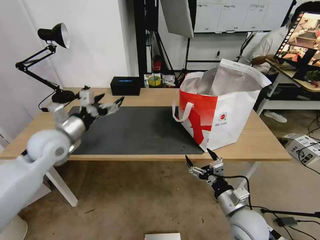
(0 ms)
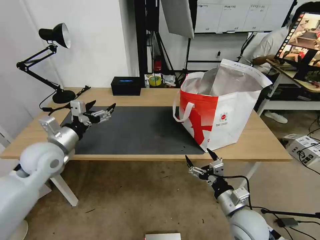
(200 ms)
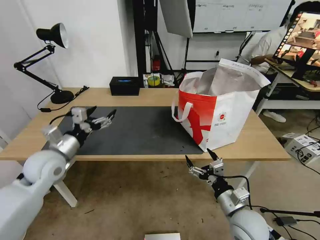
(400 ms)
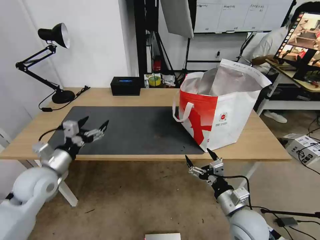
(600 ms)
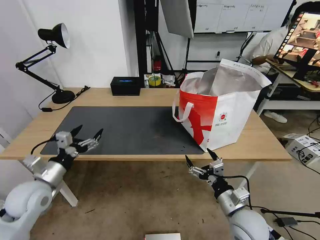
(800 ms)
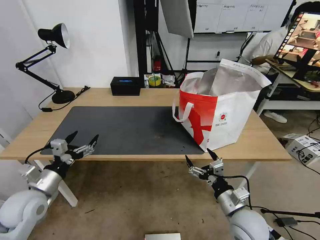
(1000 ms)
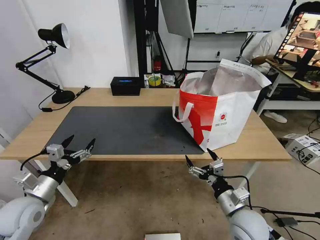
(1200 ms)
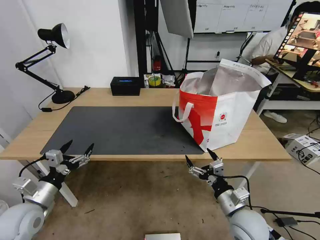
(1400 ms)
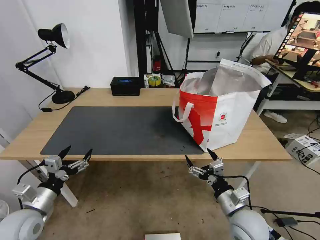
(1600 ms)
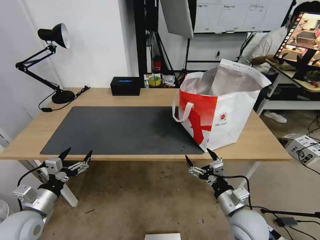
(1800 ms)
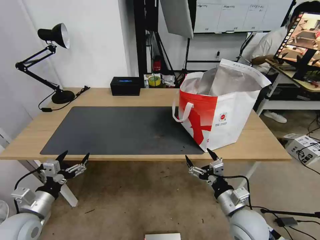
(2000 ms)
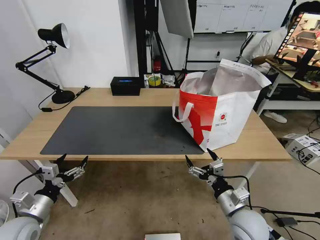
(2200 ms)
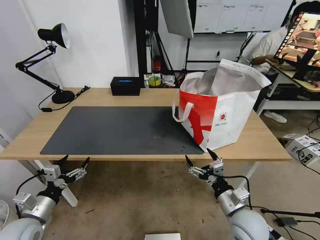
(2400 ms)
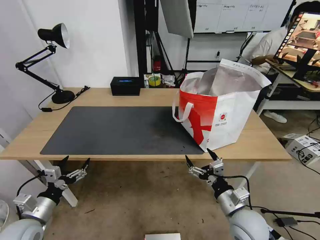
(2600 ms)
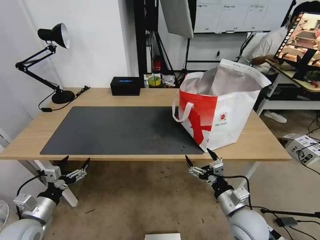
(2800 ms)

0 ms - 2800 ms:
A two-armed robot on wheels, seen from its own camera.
Task of the whole recording: Pick up the trash from the table and place it into the takeout bag.
0 ms - 1400 ms: The left gripper goes about 20 cm backward, downward and to the left.
1400 ms - 2800 ms: The left gripper shifts by roughly 5 cm.

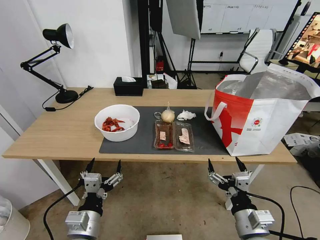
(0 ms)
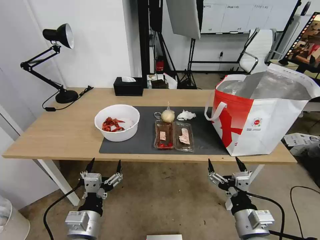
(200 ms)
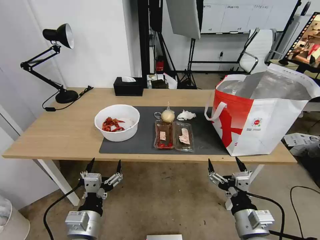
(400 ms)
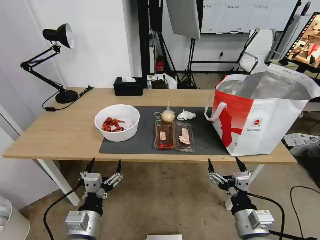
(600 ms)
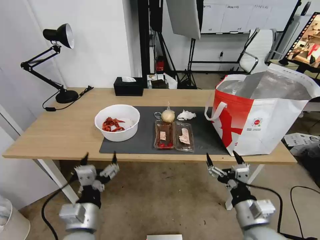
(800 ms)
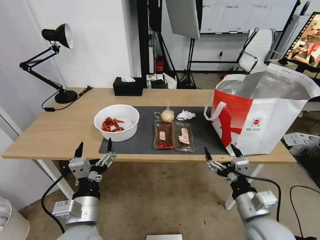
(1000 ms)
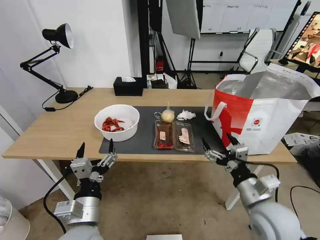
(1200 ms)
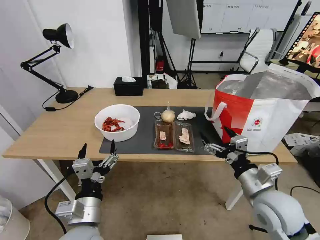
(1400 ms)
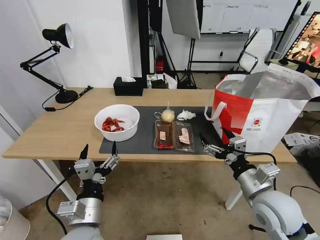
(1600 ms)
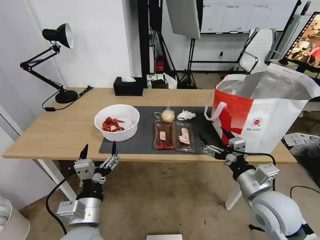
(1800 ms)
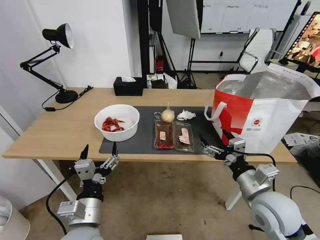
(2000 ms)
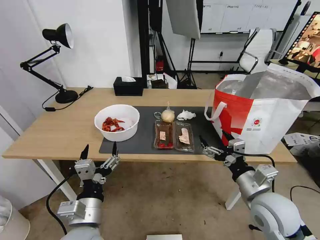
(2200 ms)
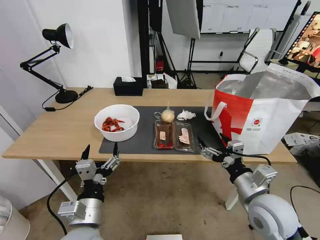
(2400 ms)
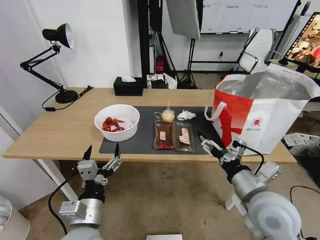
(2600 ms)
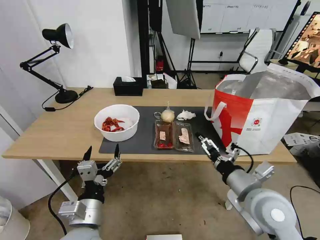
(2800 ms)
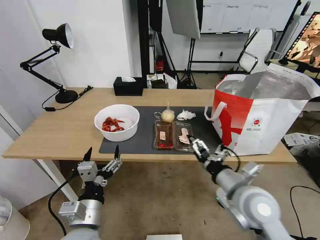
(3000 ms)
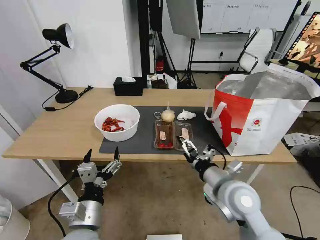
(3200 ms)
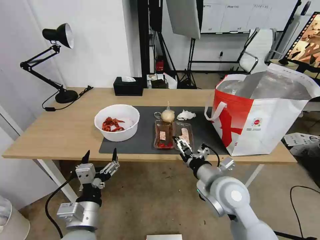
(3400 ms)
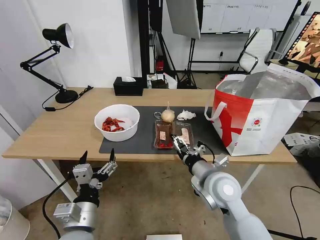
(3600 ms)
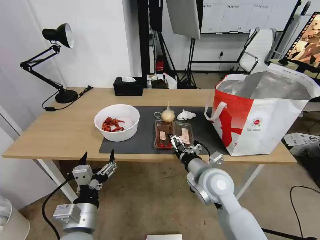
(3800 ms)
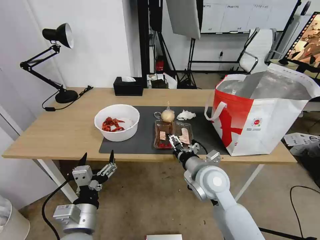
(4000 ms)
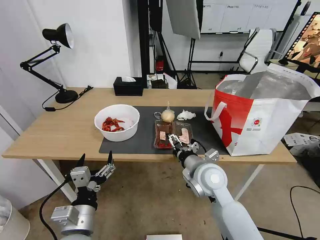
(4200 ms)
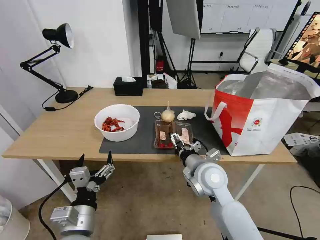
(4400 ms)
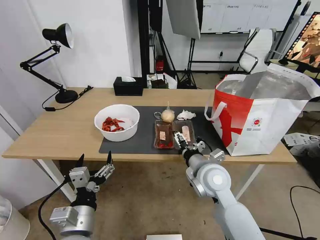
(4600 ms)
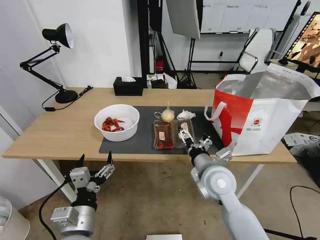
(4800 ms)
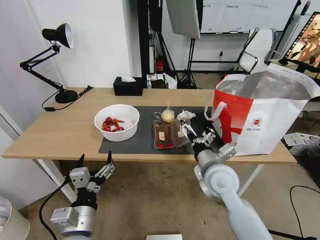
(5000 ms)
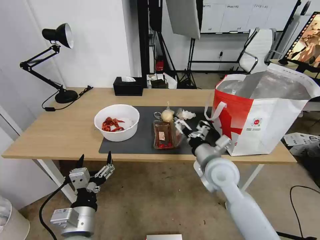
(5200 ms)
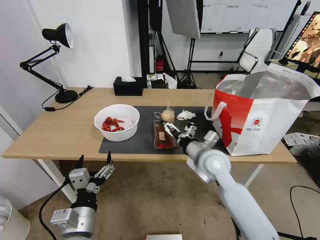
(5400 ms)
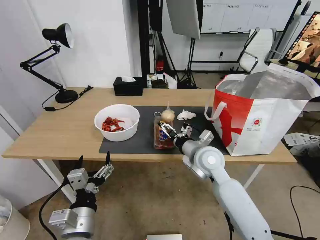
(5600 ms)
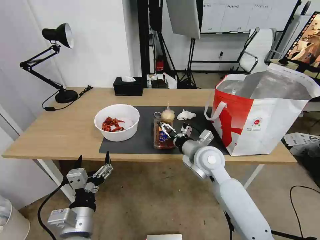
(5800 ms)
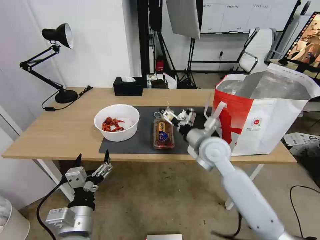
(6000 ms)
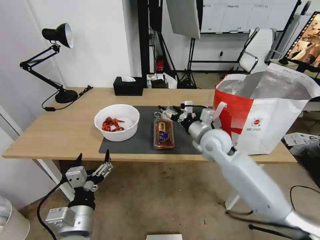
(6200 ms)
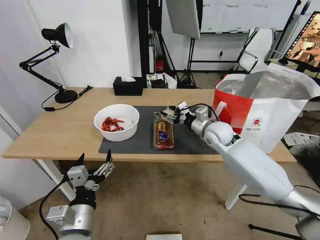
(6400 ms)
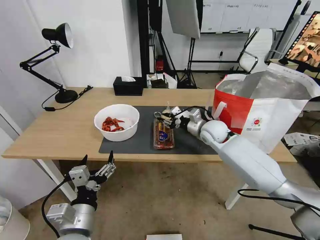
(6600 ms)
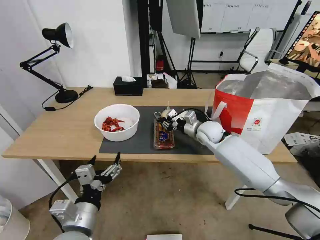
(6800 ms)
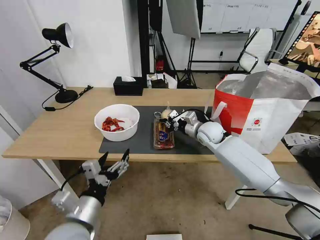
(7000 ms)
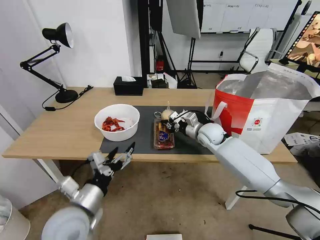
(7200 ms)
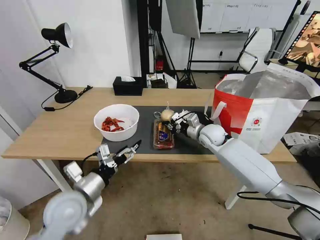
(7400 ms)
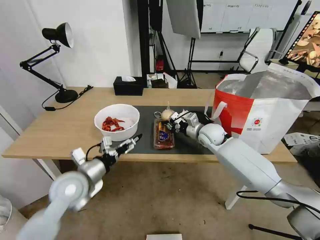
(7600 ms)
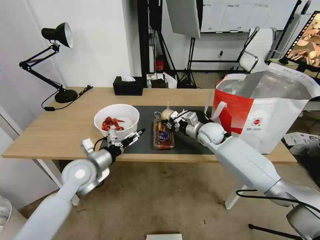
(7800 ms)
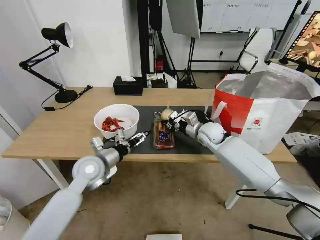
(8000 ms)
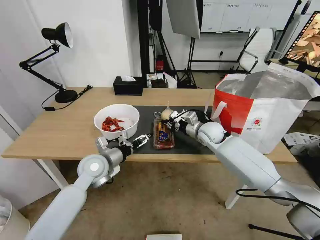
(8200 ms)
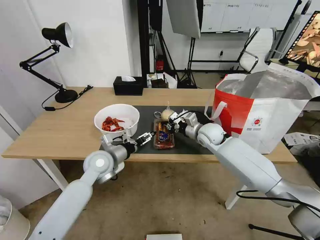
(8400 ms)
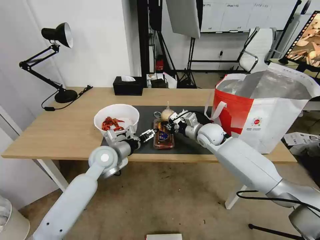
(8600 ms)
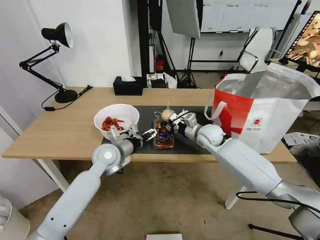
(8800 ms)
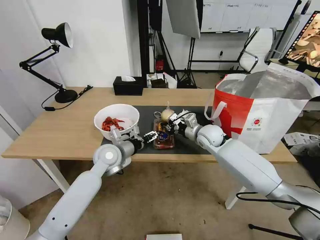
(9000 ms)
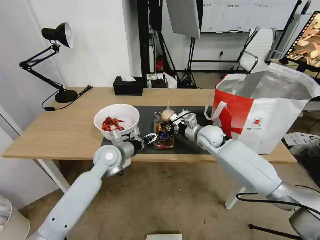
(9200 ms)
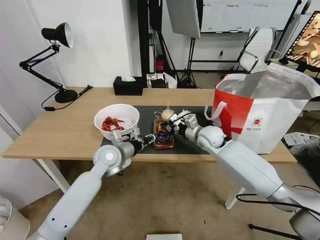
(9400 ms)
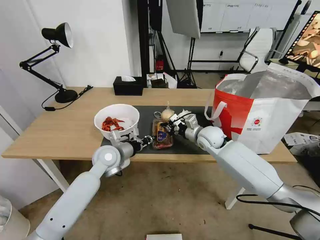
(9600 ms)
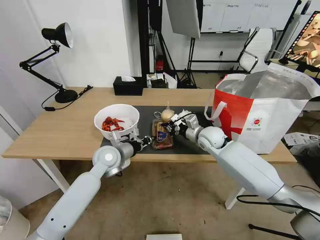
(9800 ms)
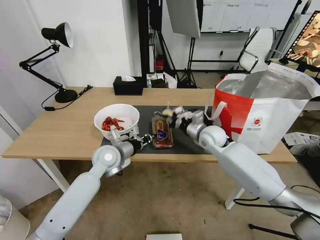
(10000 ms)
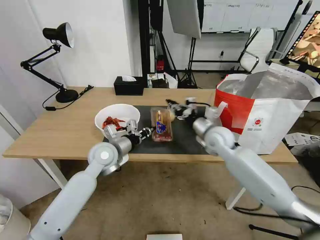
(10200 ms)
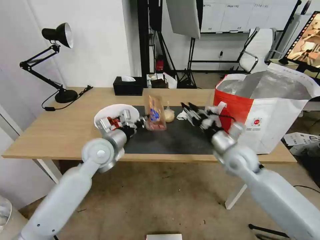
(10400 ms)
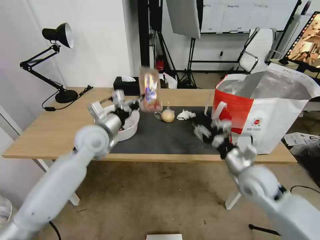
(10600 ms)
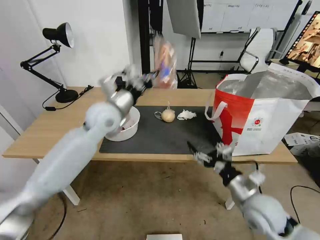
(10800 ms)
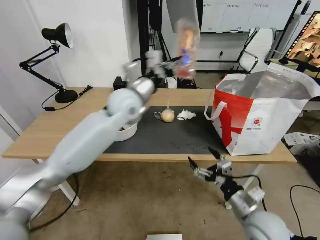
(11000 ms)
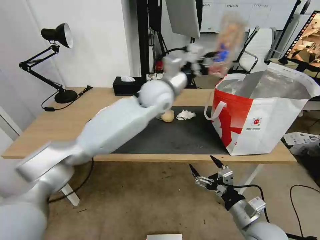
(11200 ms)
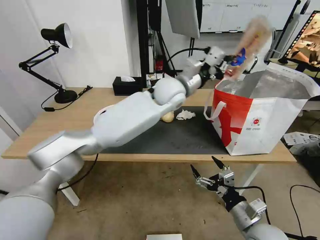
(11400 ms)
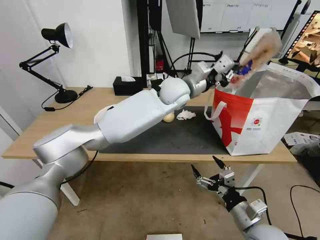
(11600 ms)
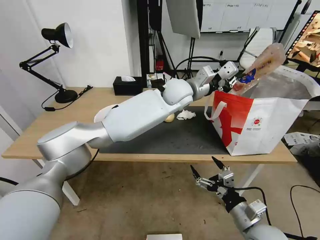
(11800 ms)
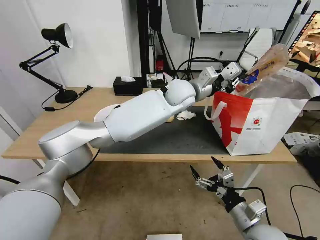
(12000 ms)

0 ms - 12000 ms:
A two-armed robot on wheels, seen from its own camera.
Task of the whole recording: Pick up the trash from the table and place it into the takeout bag.
1600 ms - 3000 ms: The right gripper travels to the left by roughly 5 cm.
3000 ms - 4400 ms: The right gripper shifts some 10 cm forward and to the left.
4400 ms - 6000 ms: The right gripper travels forward by roughly 5 cm.
6000 ms - 7600 ms: The left gripper travels forward by roughly 15 cm. Meanwhile the right gripper goes some 15 cm forward and downward, and closes.
7600 ms - 9000 ms: The left gripper shifts some 15 cm forward and to the right.
9000 ms - 10400 ms: The right gripper moves backward and to the right, about 15 cm, and opens its fingers. Meanwhile the left gripper heads upward, covering some 5 cm, and closes up.
10400 ms - 12000 ms: The right gripper goes roughly 20 cm backward, and opens up; the left gripper goes about 30 cm to the right, forward and upward.

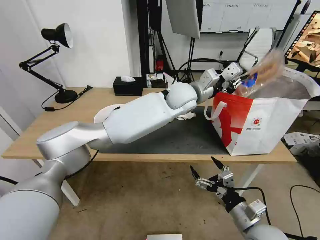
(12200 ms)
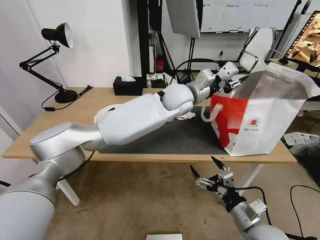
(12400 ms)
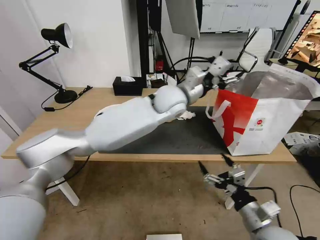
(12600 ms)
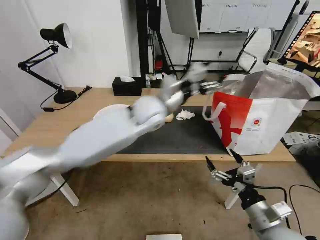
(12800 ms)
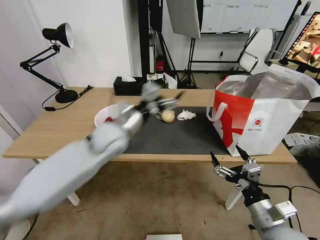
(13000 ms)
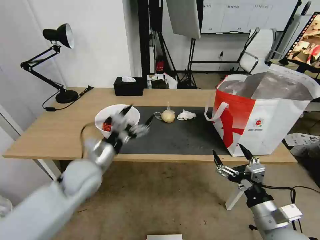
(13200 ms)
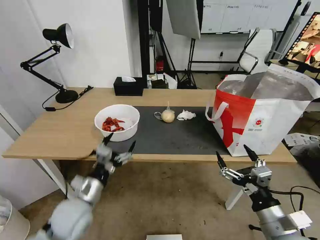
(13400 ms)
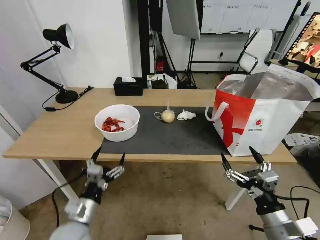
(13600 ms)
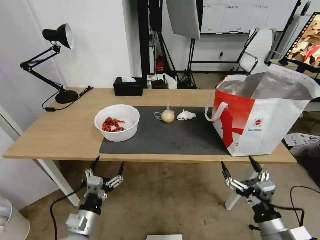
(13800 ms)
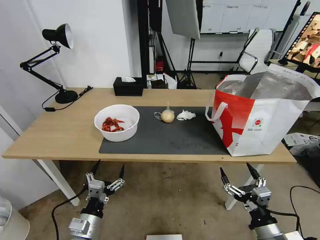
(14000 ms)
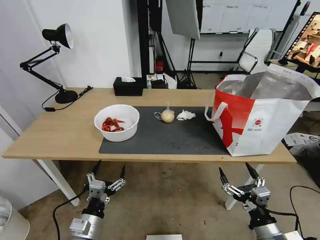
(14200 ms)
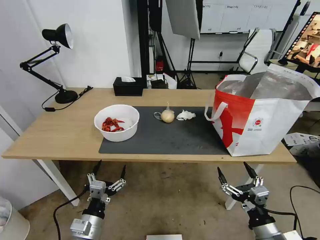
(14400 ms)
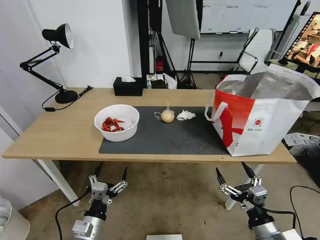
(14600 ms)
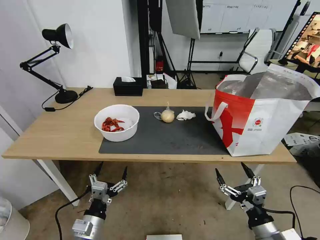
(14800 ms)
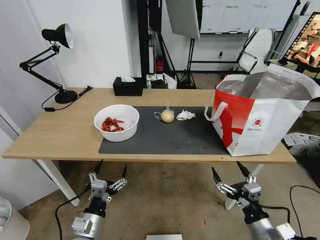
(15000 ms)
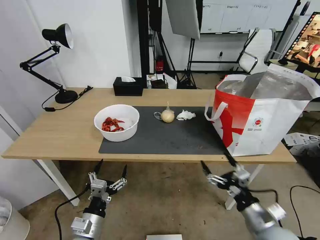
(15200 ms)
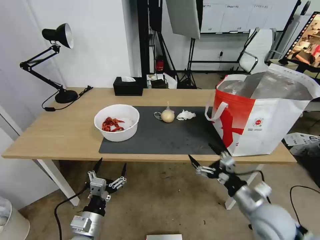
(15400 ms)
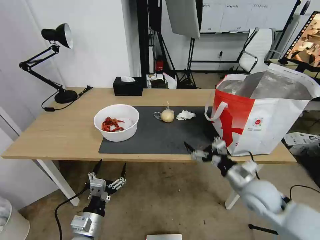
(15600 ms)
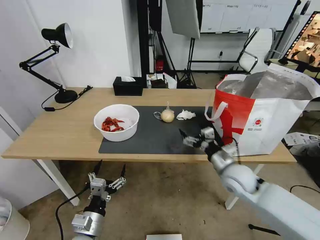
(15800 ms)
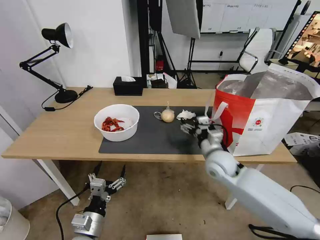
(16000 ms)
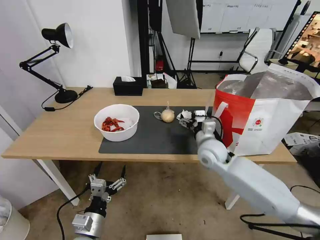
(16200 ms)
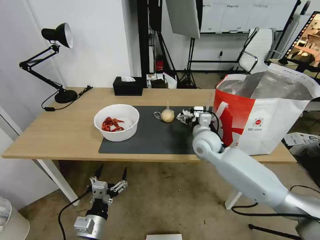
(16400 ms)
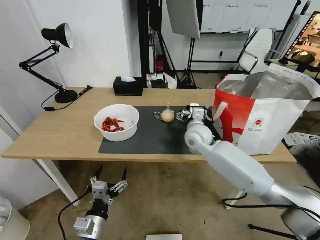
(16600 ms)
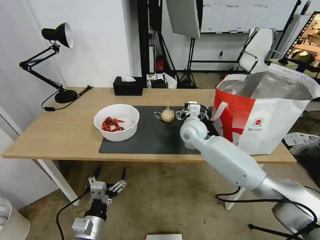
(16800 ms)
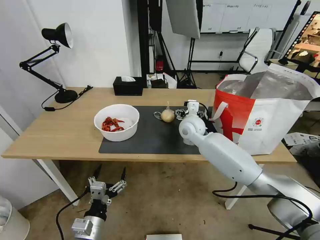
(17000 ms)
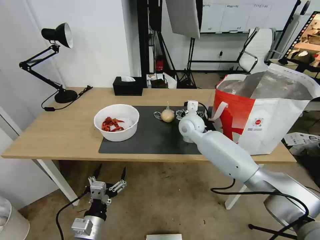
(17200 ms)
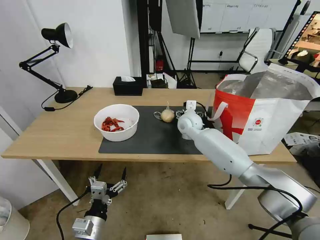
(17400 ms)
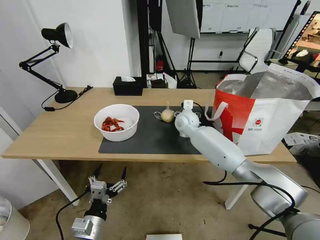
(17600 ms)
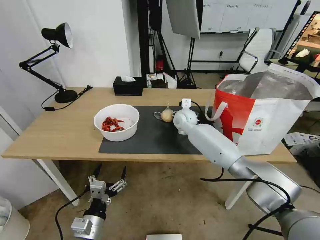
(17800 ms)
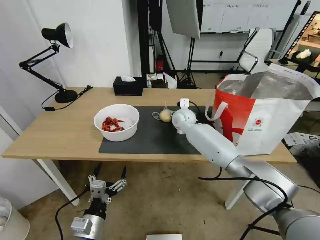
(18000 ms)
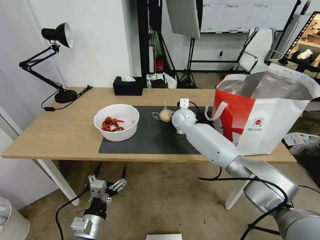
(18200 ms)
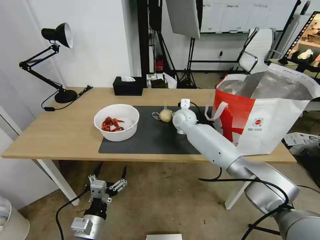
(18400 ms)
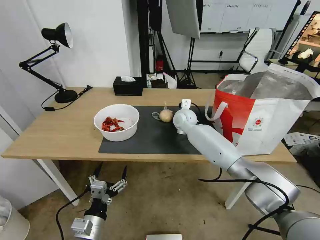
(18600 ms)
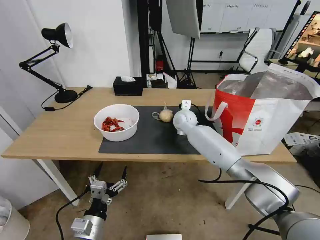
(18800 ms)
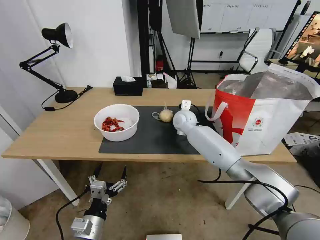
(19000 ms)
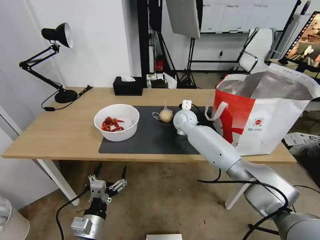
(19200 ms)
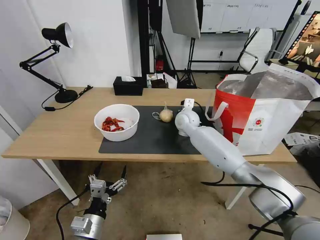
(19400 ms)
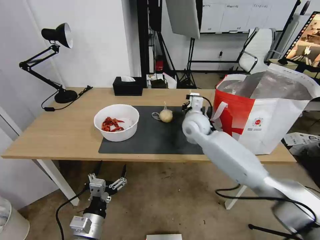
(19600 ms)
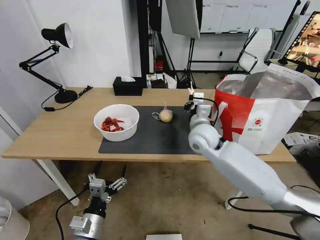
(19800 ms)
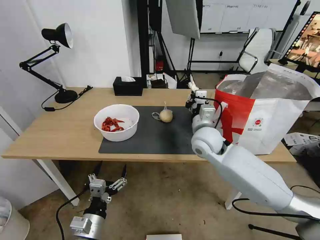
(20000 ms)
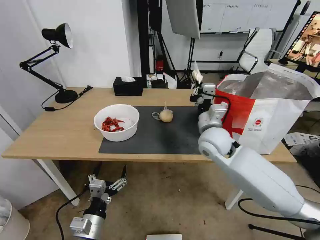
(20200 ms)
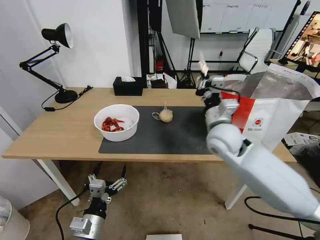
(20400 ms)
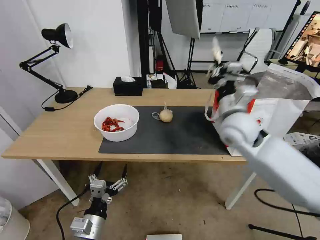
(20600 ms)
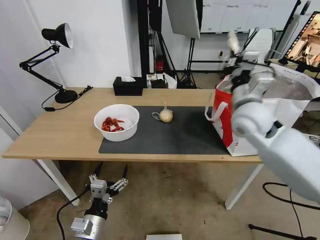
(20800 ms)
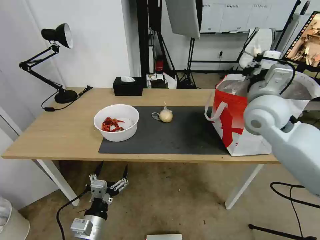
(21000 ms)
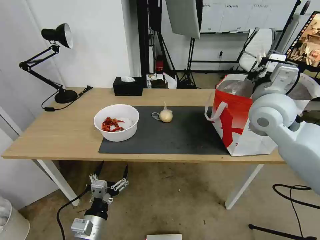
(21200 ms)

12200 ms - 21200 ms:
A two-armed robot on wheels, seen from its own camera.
Task of the whole recording: Pick up the trash from the table and place it into the takeout bag.
12200 ms - 13800 ms: The right gripper ends up approximately 5 cm from where it was. The left gripper travels backward, to the left and downward by approximately 50 cm, and opens its fingers.
13800 ms - 15200 ms: The grippers stay close to where they were, moving slightly.
15200 ms - 16600 ms: The right gripper is displaced forward and to the left by approximately 35 cm.
16600 ms - 18200 ms: The right gripper shifts roughly 10 cm forward.
18200 ms - 19800 ms: The right gripper is displaced backward by approximately 15 cm, and closes up.
19800 ms - 21200 ms: The right gripper heads upward and to the right, covering about 20 cm.
